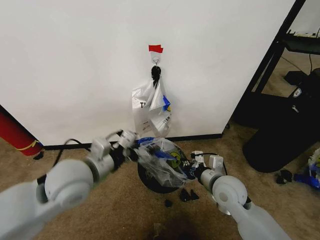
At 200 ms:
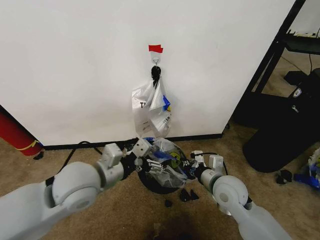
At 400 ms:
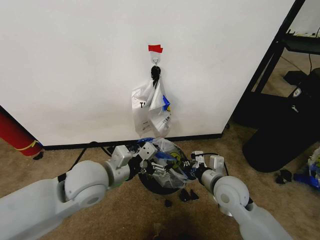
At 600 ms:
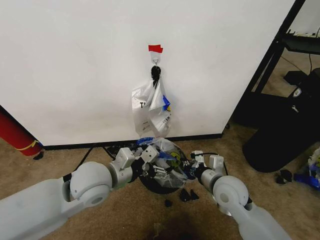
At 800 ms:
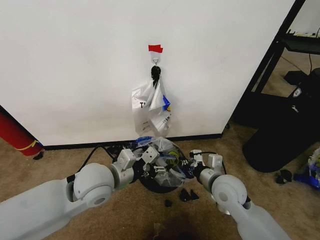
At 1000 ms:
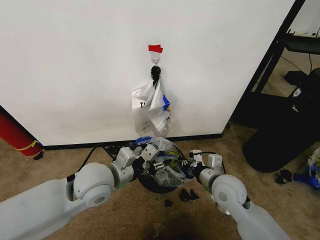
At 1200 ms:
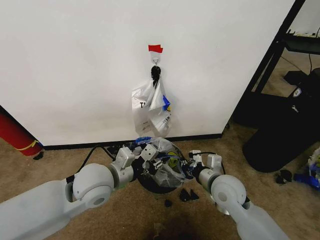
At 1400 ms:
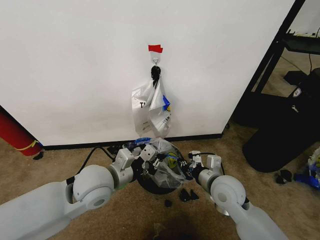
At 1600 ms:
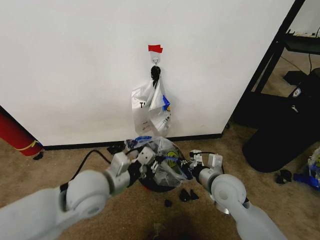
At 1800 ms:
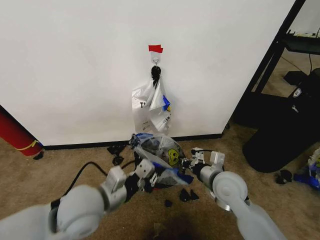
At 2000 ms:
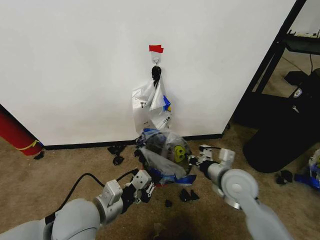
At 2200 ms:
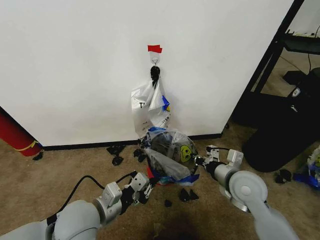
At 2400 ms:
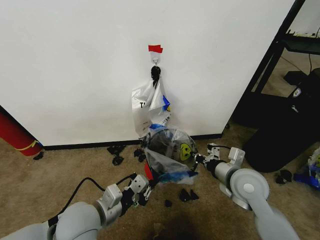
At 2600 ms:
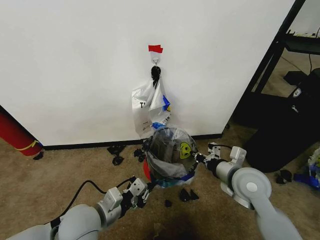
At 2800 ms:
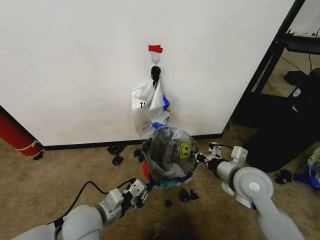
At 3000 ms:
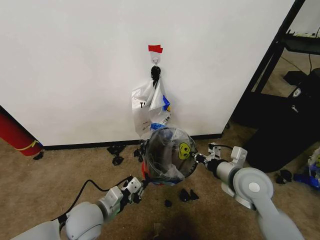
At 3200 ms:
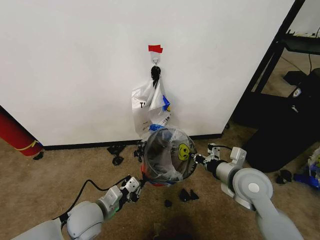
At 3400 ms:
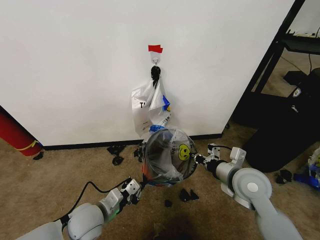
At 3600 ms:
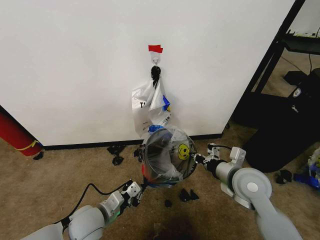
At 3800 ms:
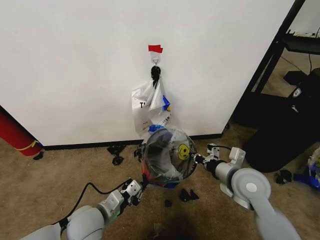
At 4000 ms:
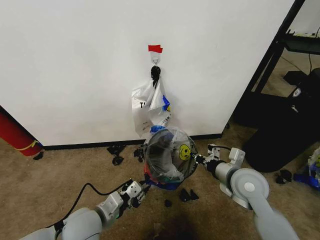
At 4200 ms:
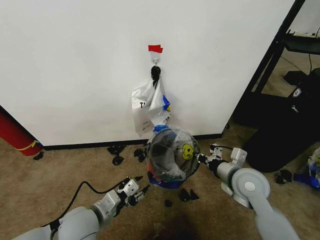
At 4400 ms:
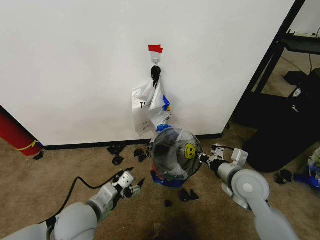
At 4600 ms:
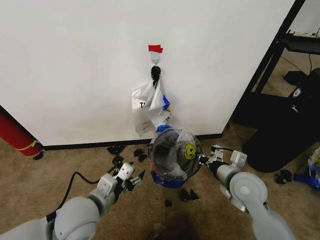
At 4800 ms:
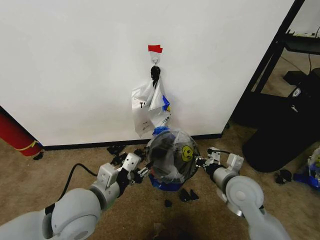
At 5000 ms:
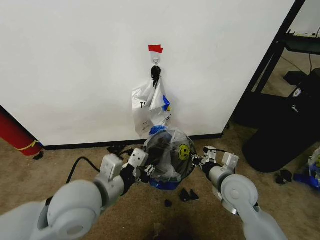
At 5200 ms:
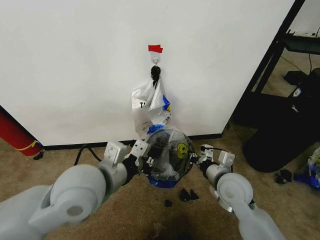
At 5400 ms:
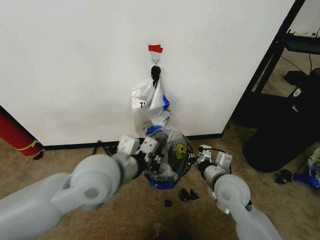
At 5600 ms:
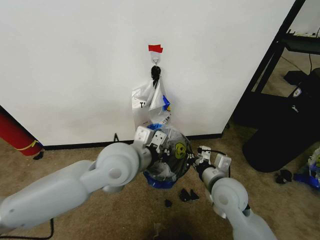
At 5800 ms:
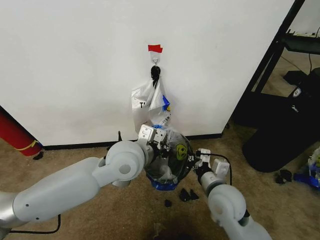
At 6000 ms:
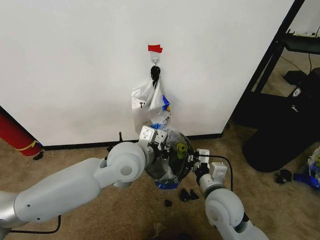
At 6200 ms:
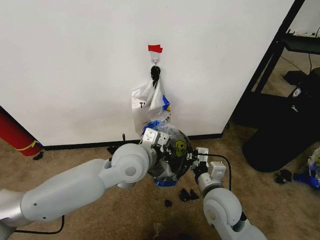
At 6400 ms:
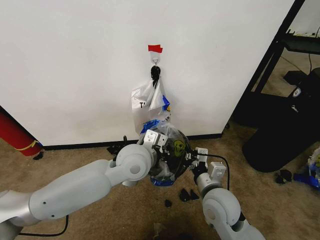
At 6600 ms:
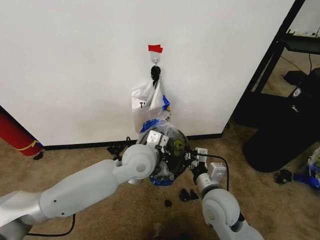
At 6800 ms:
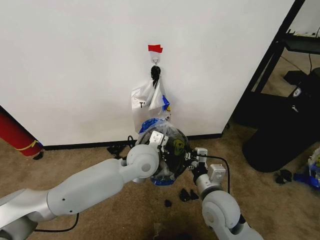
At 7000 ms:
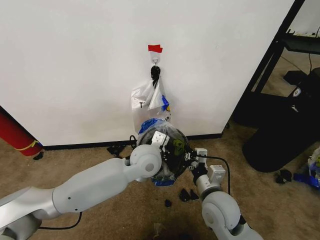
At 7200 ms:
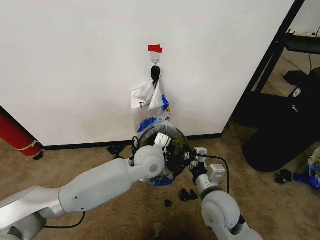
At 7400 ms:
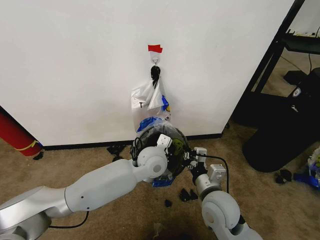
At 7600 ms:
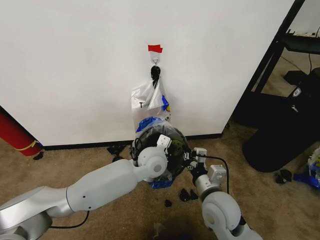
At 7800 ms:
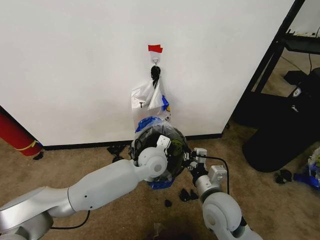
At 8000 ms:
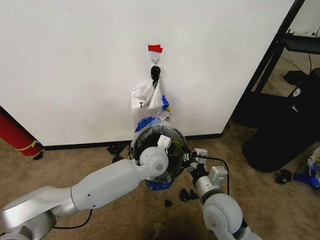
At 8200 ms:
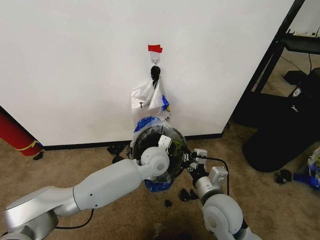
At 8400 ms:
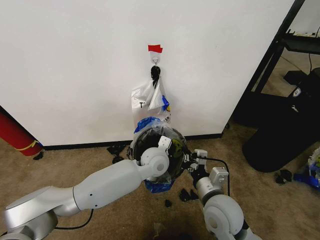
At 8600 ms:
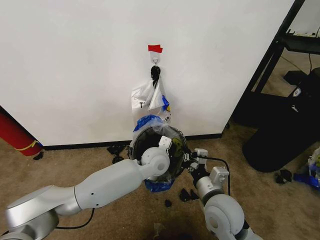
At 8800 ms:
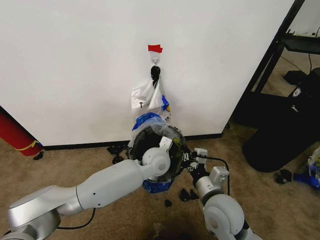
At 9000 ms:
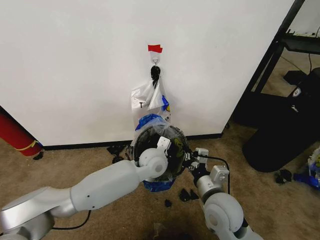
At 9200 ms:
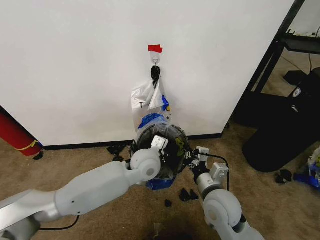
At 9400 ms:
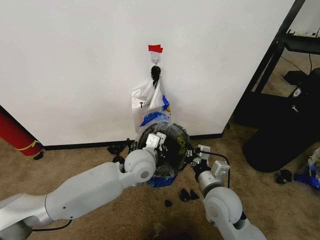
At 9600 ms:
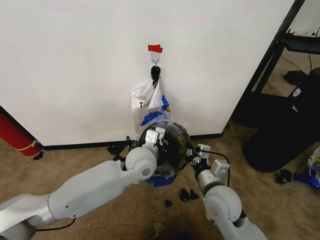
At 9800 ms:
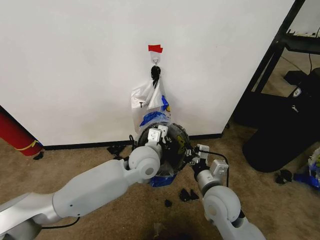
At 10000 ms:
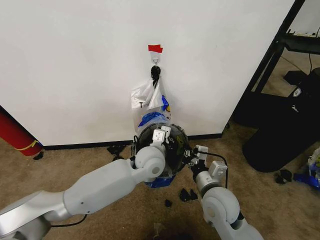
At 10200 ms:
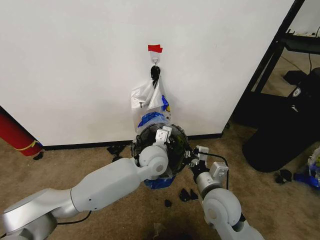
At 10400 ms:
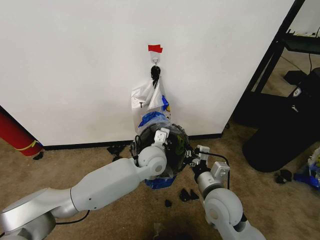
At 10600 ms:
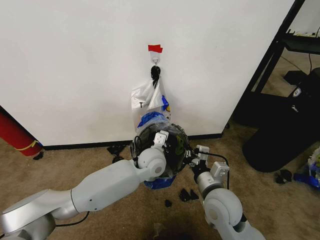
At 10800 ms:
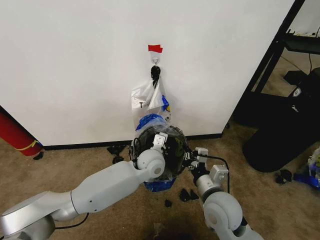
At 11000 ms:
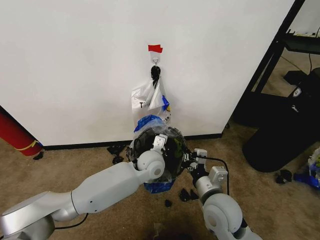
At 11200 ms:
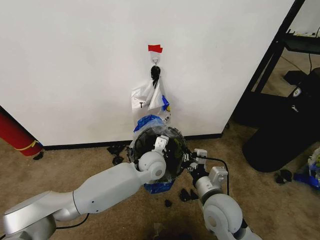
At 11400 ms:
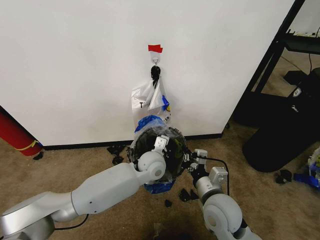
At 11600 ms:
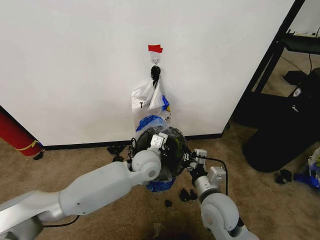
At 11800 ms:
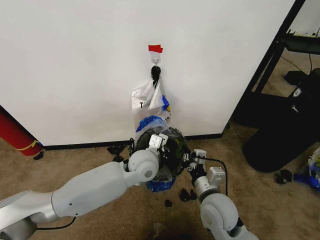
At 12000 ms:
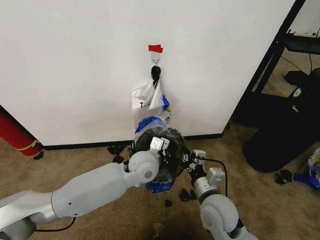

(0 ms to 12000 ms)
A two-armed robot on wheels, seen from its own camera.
Task of the whole recording: Pick up the garbage bag from the wall and place it over the trash bin.
0 ms - 1600 ms: The left gripper ends up some 5 cm from where it was, and closes up.
1600 ms - 3000 ms: The left gripper heads downward, covering roughly 10 cm; the right gripper travels to the right by approximately 5 cm.
3000 ms - 4400 ms: The left gripper opens its fingers.
4400 ms - 6000 ms: The right gripper is displaced to the left and backward by roughly 10 cm. The left gripper goes roughly 20 cm to the right, upward and forward, and closes.
6000 ms - 7600 ms: The left gripper heads downward, forward and to the right, covering roughly 15 cm.
7600 ms - 9000 ms: The grippers make only small movements.
10400 ms - 12000 ms: The grippers move only a little.

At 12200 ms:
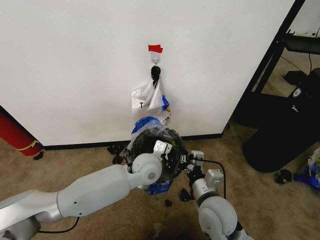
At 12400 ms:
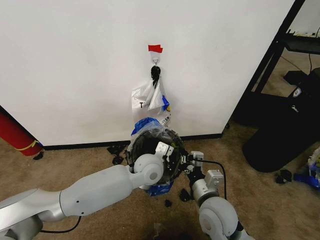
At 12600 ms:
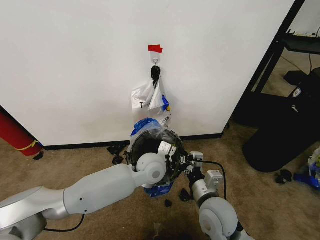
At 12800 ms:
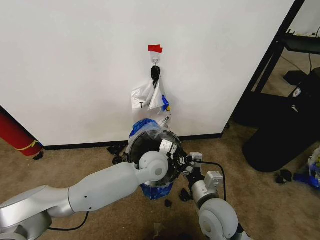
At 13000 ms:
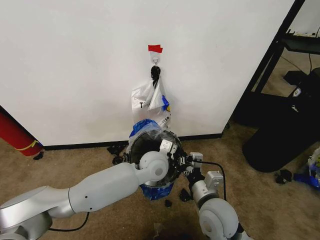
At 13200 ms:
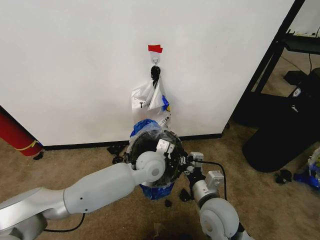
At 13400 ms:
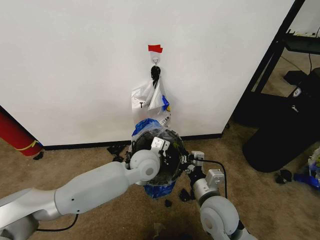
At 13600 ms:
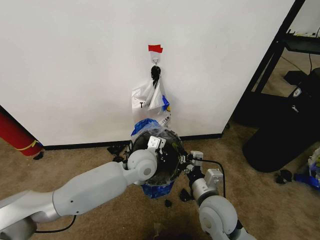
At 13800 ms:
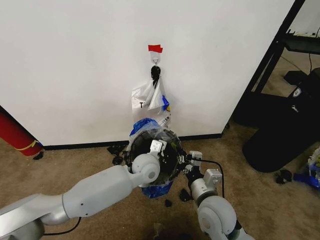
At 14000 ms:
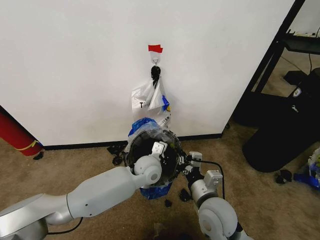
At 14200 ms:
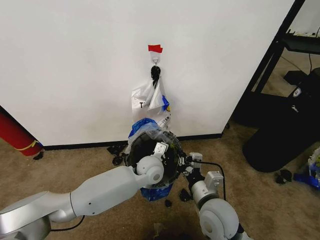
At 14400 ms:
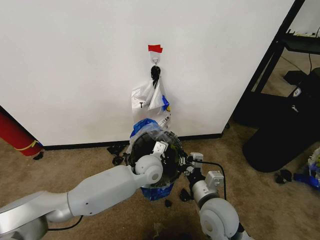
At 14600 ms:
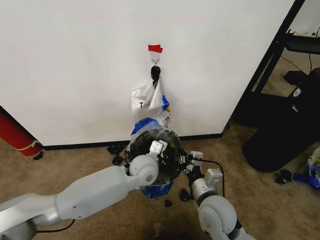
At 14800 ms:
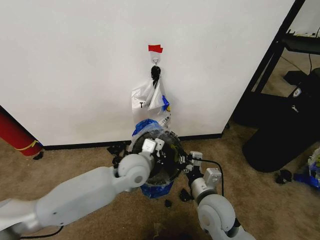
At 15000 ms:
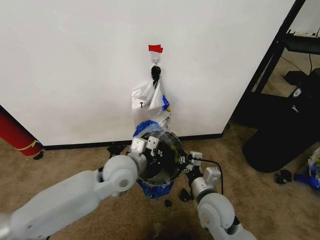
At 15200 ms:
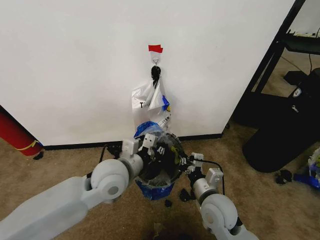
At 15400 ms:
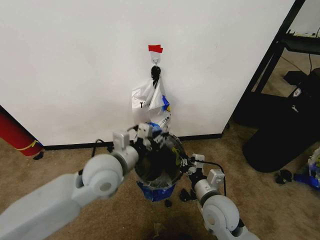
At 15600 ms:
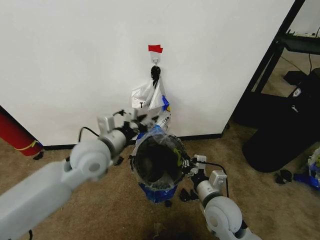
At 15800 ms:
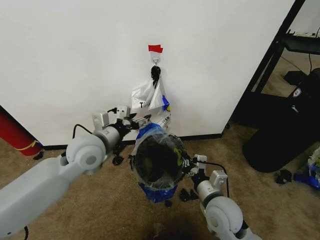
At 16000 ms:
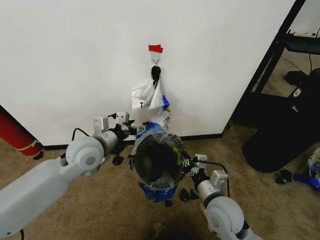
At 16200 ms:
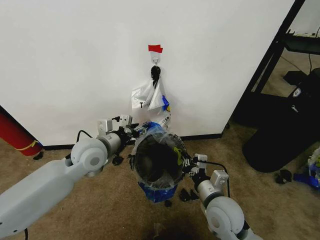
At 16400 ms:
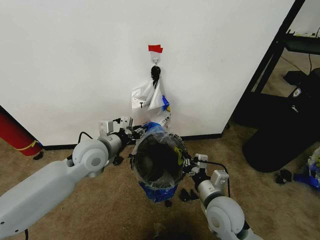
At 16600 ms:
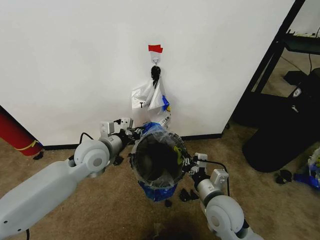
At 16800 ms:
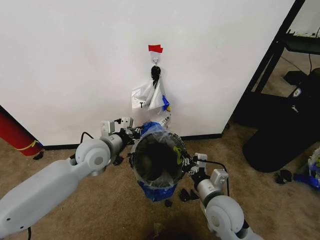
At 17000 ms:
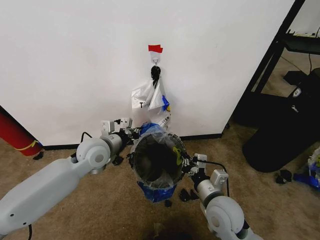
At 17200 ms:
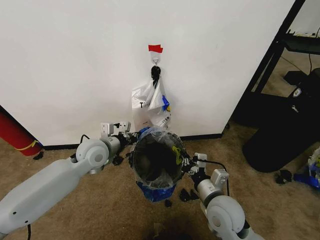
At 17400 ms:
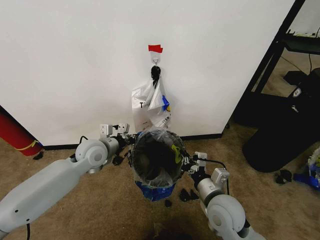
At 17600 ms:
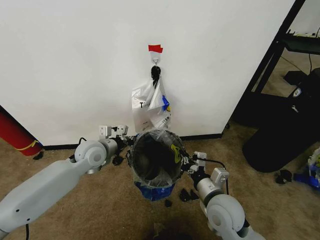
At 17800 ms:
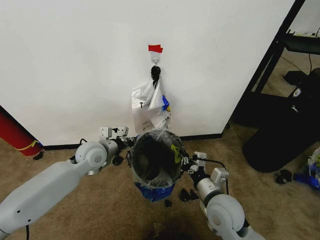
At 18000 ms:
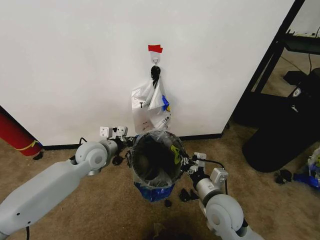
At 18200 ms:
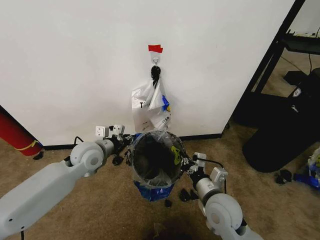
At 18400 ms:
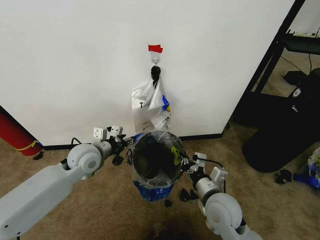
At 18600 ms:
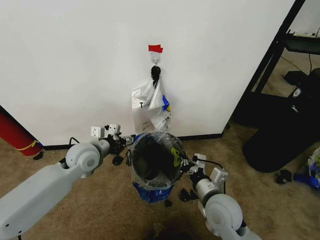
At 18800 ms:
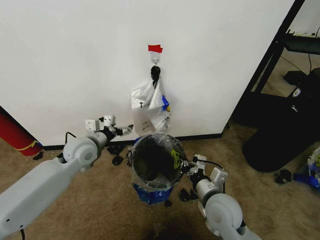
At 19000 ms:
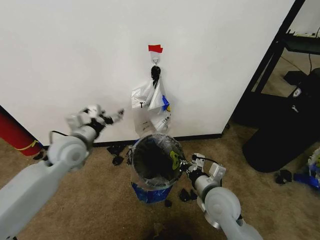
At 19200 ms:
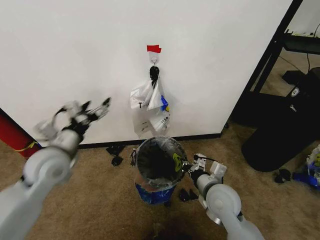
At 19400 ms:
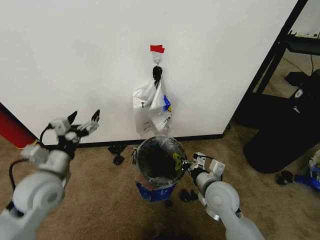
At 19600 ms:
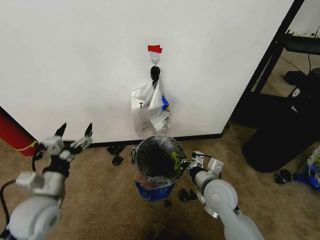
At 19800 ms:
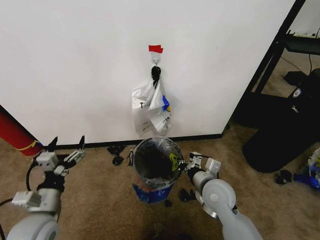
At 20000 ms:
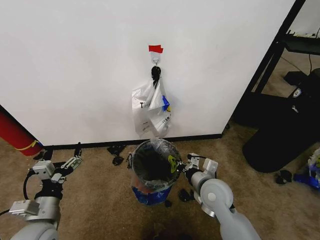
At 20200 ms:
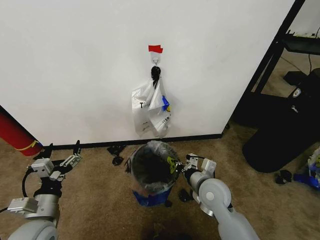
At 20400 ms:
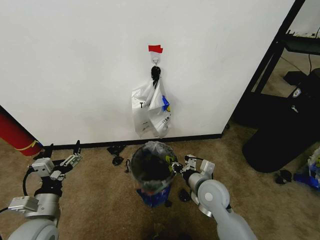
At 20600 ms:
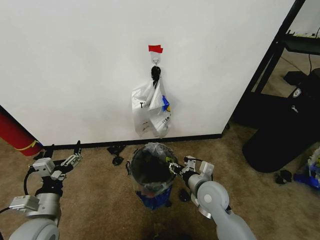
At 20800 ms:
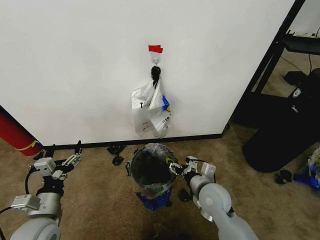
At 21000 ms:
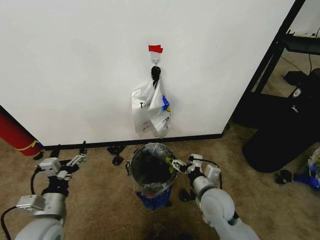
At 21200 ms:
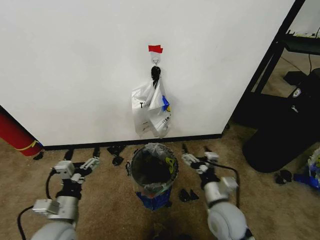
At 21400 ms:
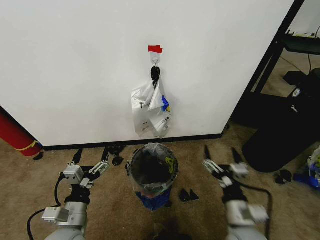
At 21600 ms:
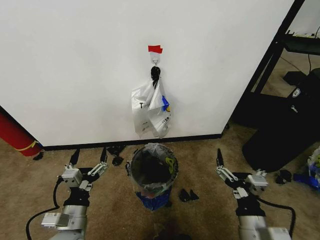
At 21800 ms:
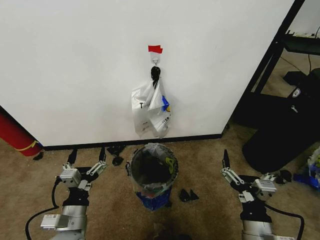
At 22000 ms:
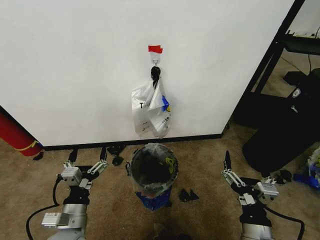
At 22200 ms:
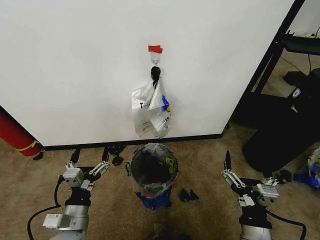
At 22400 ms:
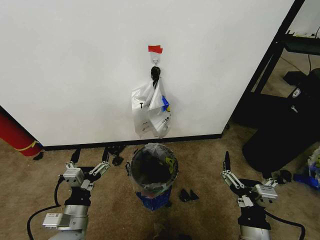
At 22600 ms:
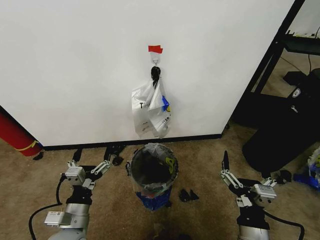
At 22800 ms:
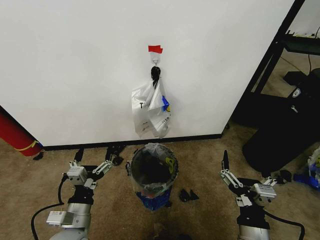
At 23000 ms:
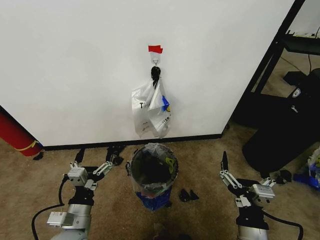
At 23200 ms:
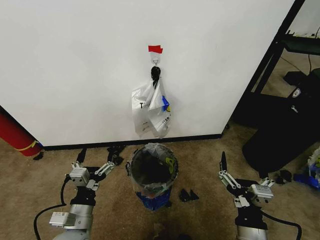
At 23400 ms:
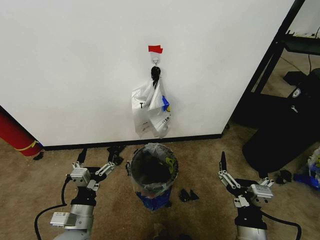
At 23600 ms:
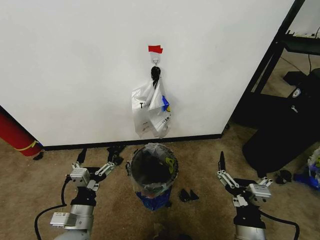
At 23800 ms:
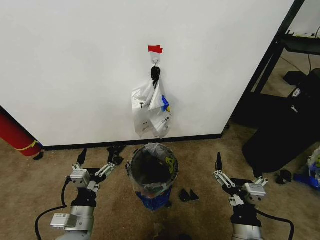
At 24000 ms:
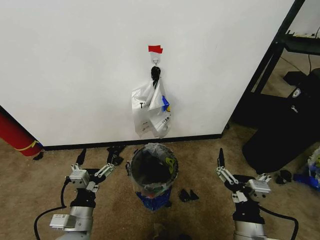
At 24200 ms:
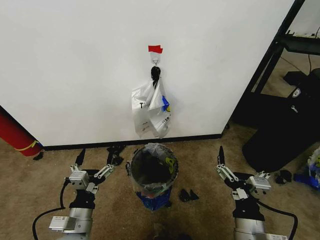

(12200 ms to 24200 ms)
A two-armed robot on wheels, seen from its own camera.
Task of the whole recording: Pick up the garbage bag from the wall and place it over the trash bin.
12200 ms - 13800 ms: The grippers make only small movements.
13800 ms - 15200 ms: The left gripper is displaced upward, backward and to the left by about 15 cm.
15200 ms - 16600 ms: The left gripper is displaced to the left and forward by approximately 10 cm, and opens, then closes again.
16600 ms - 18200 ms: The left gripper changes place by roughly 5 cm.
18200 ms - 19800 ms: The left gripper goes some 20 cm backward and to the left, and opens its fingers.
19800 ms - 21200 ms: The right gripper shifts approximately 5 cm backward, and opens up, while the left gripper shifts by about 5 cm.
21200 ms - 22600 ms: The right gripper goes roughly 10 cm backward.
22600 ms - 24200 ms: There are only small adjustments of the grippers.
